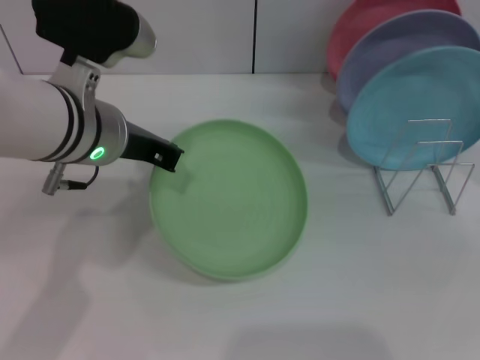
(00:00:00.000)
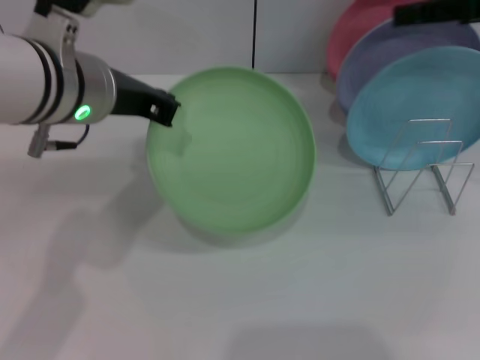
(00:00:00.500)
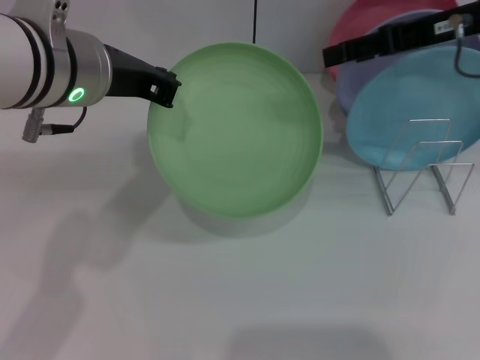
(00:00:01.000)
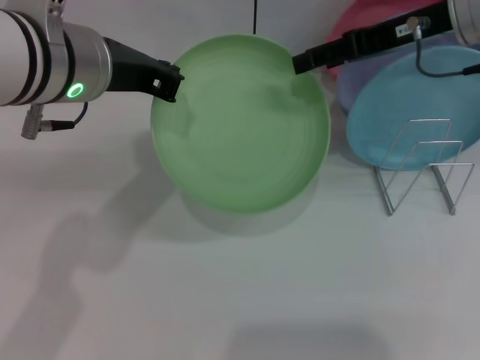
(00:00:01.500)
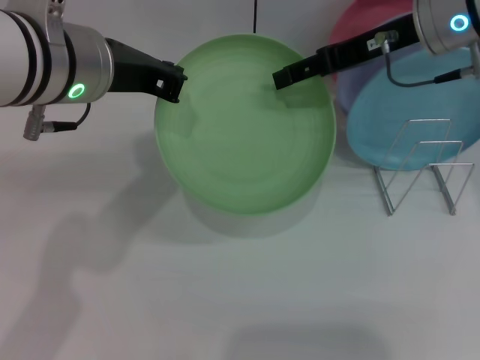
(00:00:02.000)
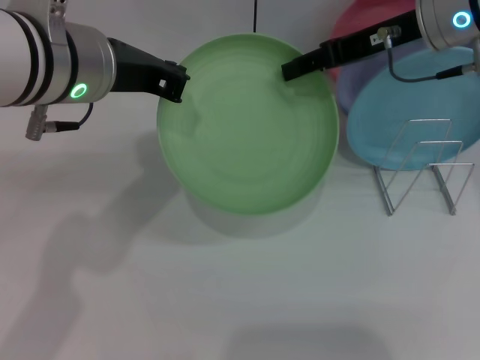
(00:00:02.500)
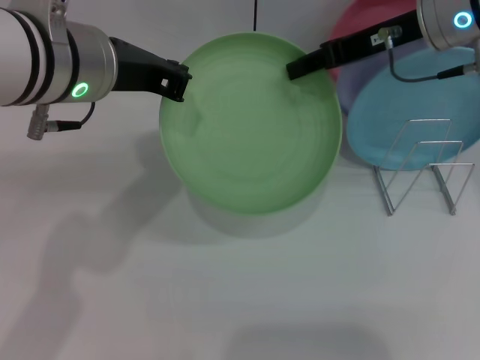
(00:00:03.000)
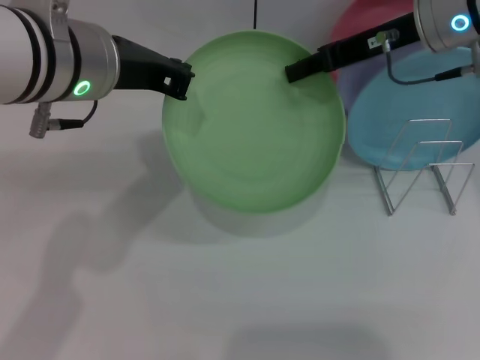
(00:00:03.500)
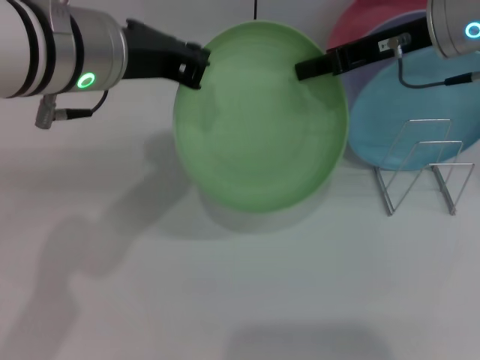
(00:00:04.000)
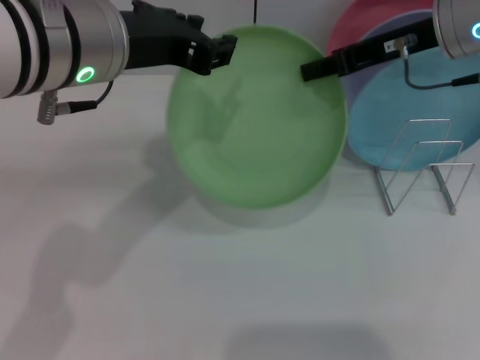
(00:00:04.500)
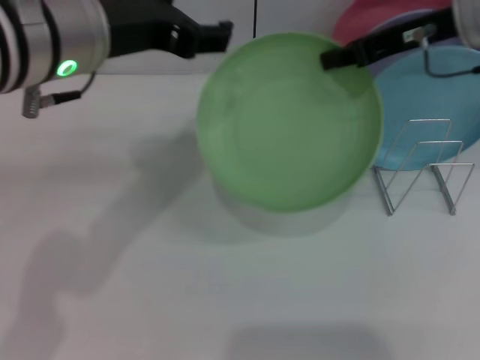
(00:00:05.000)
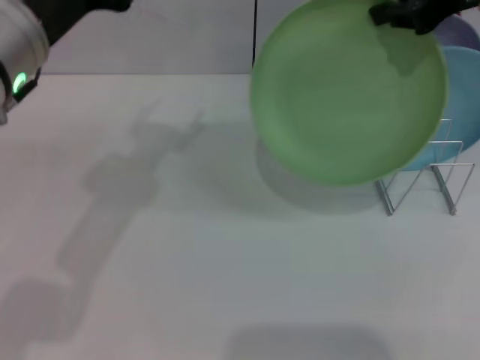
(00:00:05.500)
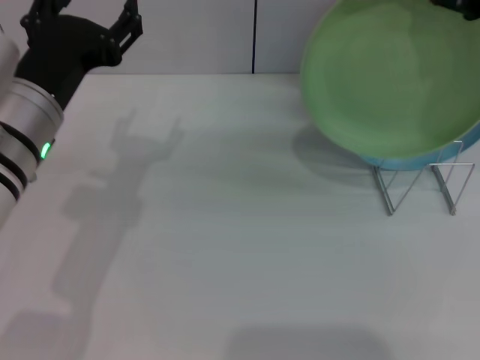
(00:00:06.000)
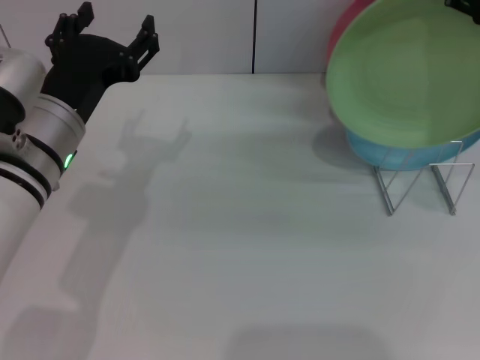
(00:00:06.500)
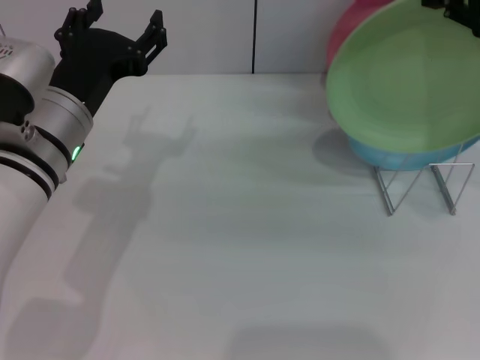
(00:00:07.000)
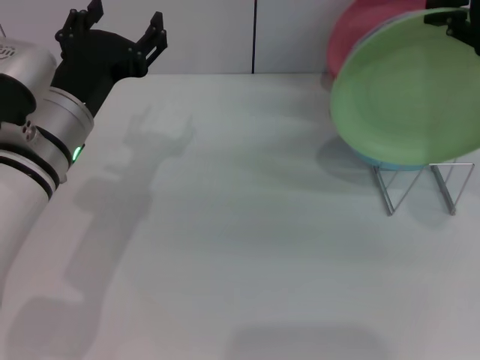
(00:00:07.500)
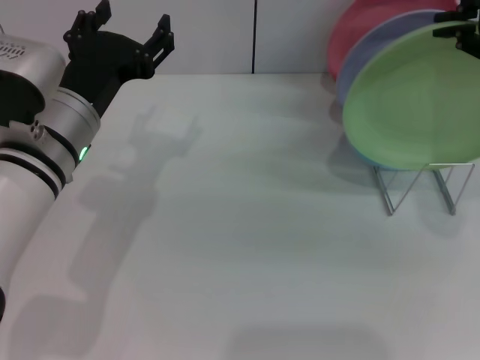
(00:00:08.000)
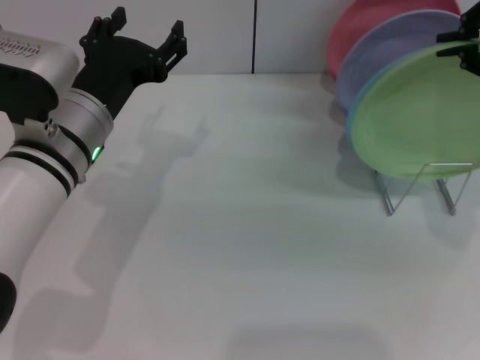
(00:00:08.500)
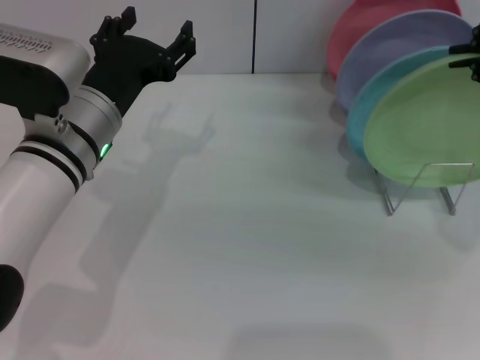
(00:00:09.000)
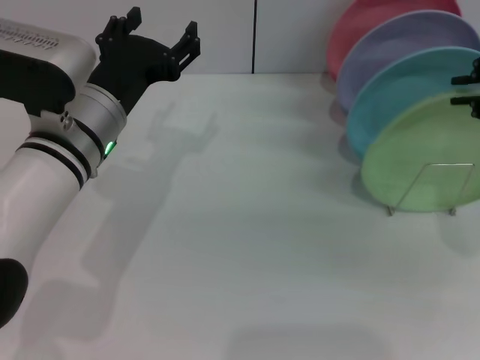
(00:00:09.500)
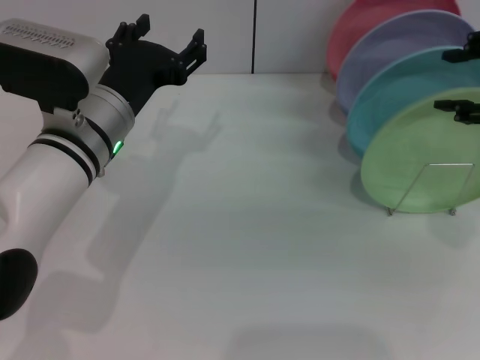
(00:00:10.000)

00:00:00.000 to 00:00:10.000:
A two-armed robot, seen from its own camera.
Task of the whole recording: Grip the plate with one hand, pass it to the other, then set it on the shelf.
Step, 00:00:00.500 to 00:00:05.000: Pass the plate from the left gripper to the right gripper.
Step, 00:00:06.000 to 00:00:10.000: Place the plate on the shelf with the right gripper.
00:00:00.000 to 00:00:02.000: The left gripper goes some 5 cm upward. Meanwhile the right gripper heads to the left and forward, covering approximately 15 cm.
00:00:02.000 to 00:00:04.000: The right gripper closes up.
00:00:04.000 to 00:00:06.000: The right gripper moves upward, some 10 cm; the left gripper moves downward and to the left, roughly 10 cm, and opens.
00:00:06.000 to 00:00:08.000: The right gripper changes place by roughly 5 cm.
00:00:08.000 to 00:00:10.000: The right gripper opens up.

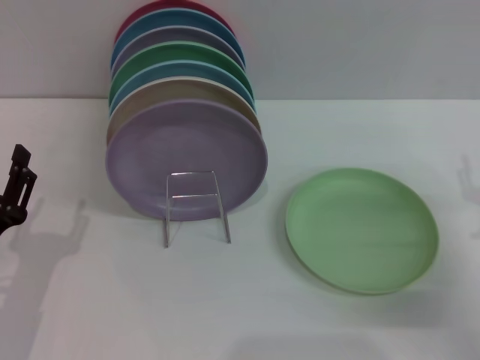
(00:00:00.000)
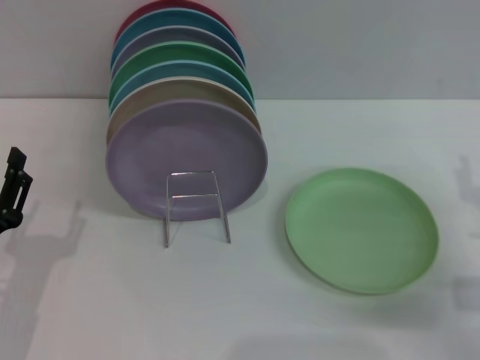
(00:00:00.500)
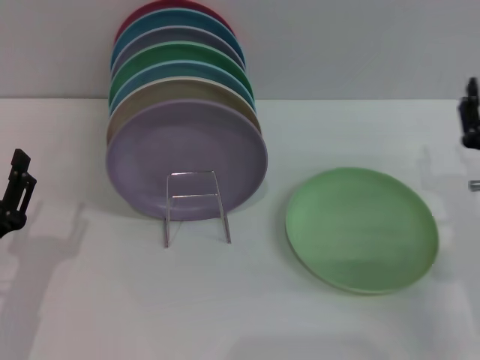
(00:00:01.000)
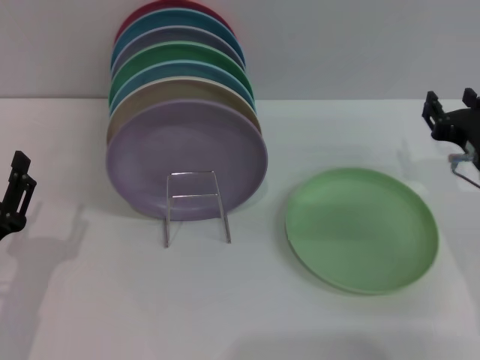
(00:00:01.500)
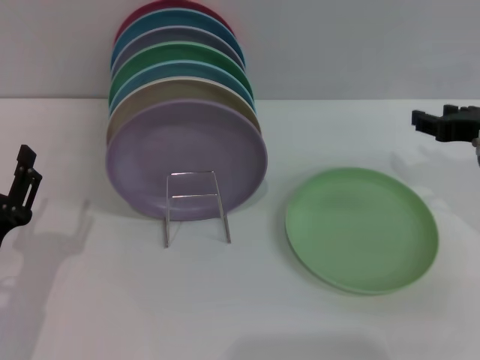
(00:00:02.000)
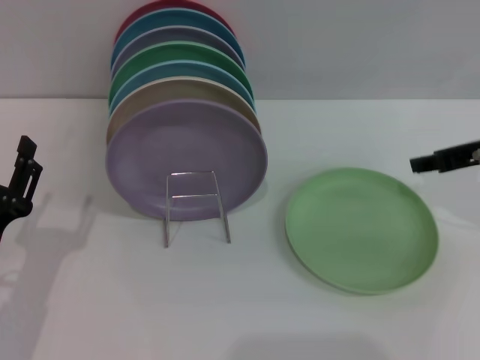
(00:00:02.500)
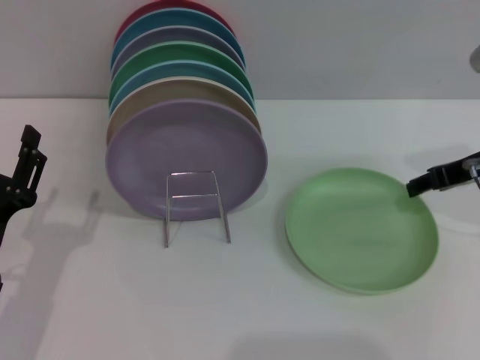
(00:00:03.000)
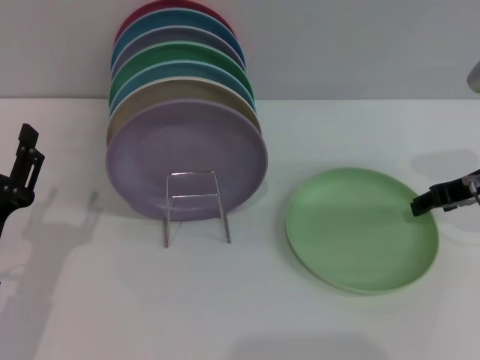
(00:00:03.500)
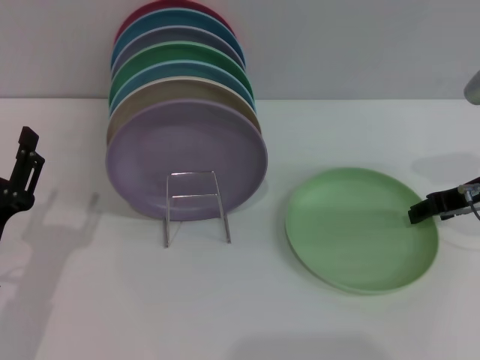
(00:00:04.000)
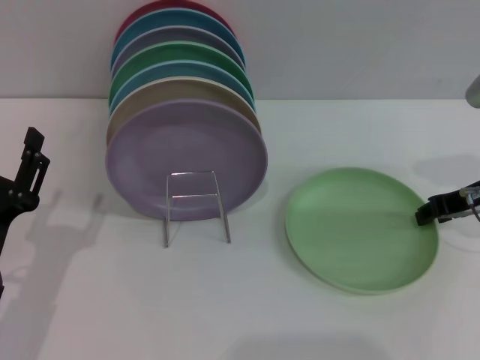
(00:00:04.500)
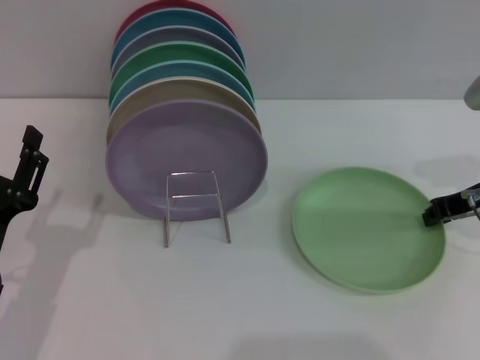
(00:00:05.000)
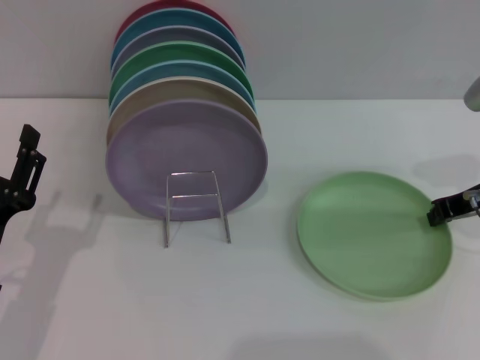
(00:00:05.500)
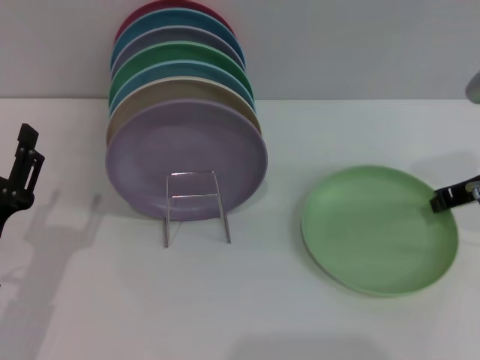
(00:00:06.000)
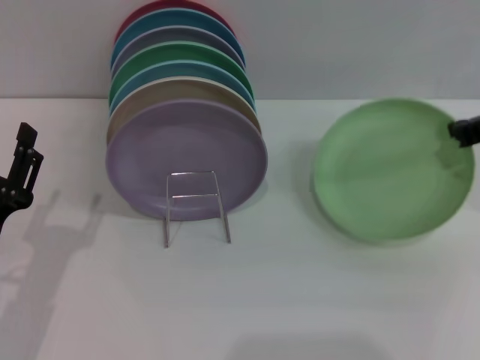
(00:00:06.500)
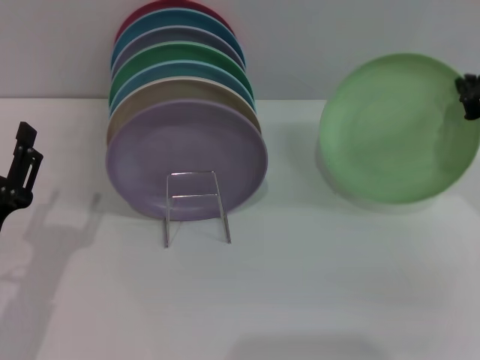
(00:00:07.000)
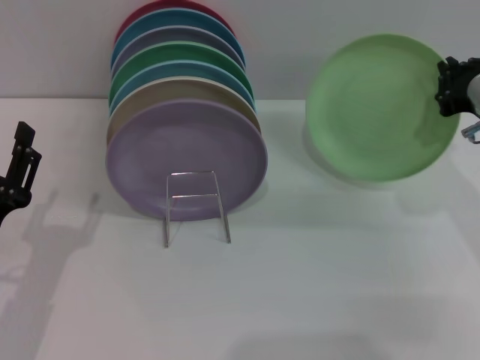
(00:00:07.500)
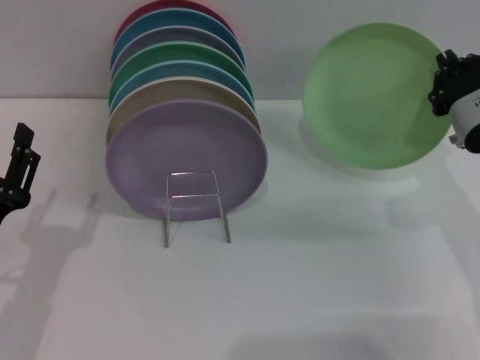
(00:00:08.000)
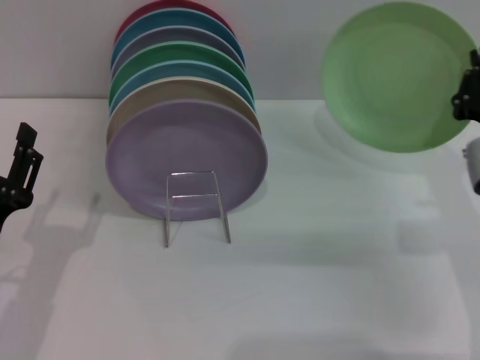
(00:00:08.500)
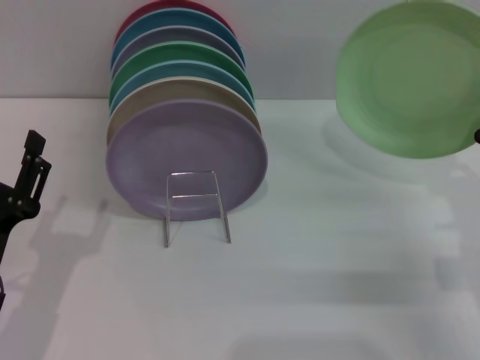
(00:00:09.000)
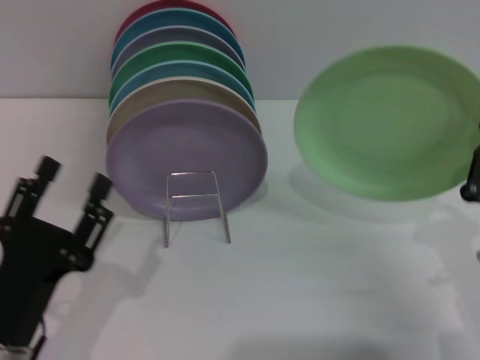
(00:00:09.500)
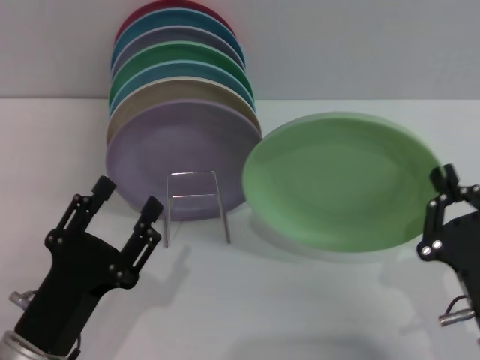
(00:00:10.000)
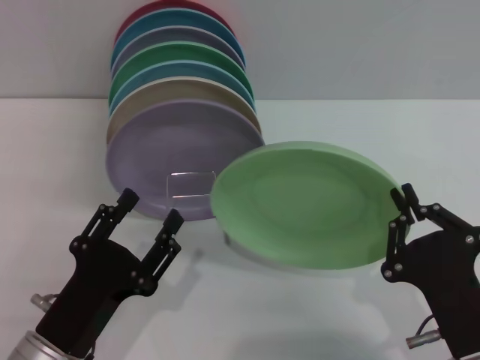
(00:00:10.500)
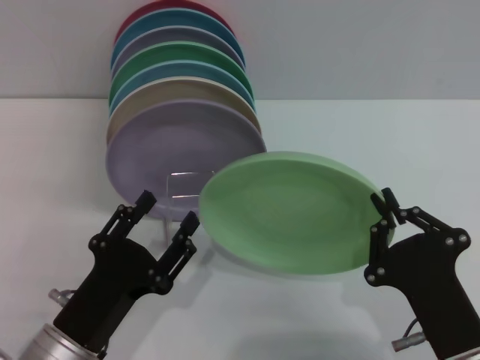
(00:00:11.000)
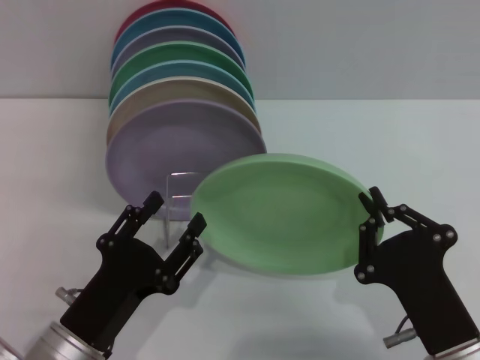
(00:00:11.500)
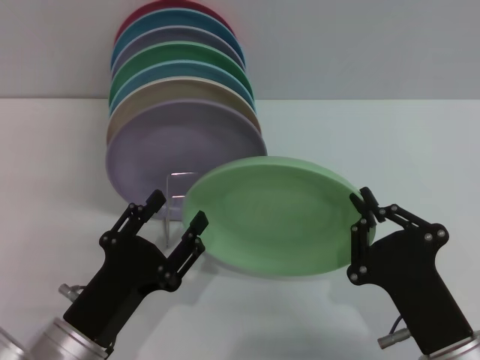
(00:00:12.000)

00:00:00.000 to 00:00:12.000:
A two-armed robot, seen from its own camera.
Task of the whole recording: Grip the plate with one hand, pass it to the other, then set it on the shelf.
Step, 00:00:00.000 to 00:00:06.500: Pick up the plate with the right gripper.
00:00:00.000 to 00:00:02.000: The right gripper shifts some 10 cm upward and forward.
00:00:04.000 to 00:00:06.000: The right gripper closes up.
00:00:06.000 to 00:00:08.000: The right gripper changes place by approximately 5 cm.
00:00:08.000 to 00:00:10.000: The left gripper heads to the right, covering approximately 5 cm; the right gripper shifts some 20 cm backward and downward.

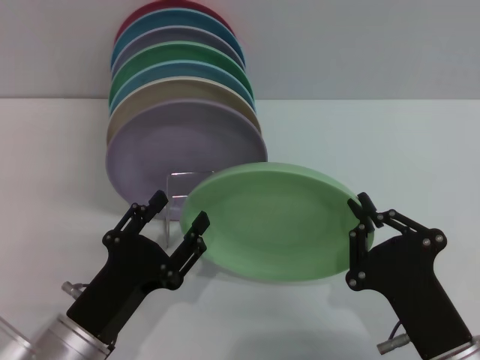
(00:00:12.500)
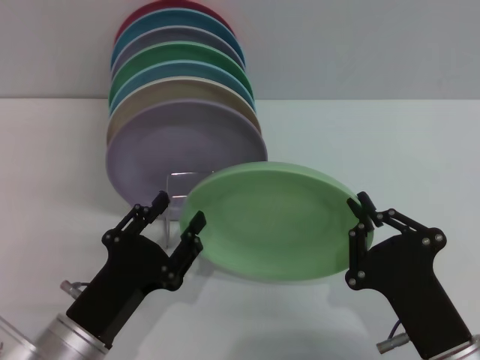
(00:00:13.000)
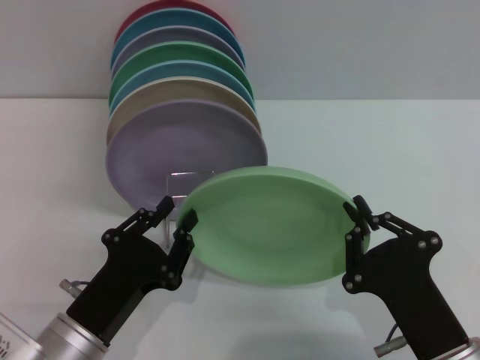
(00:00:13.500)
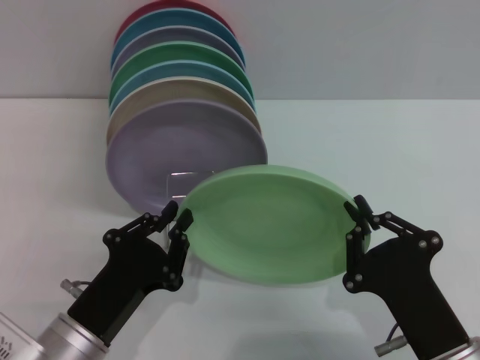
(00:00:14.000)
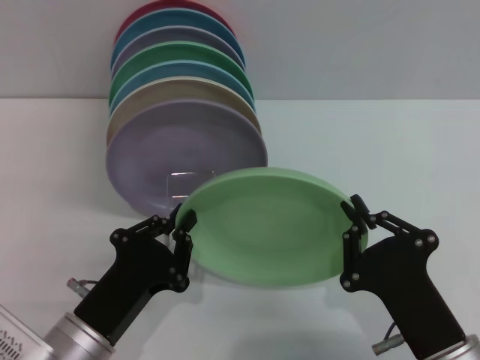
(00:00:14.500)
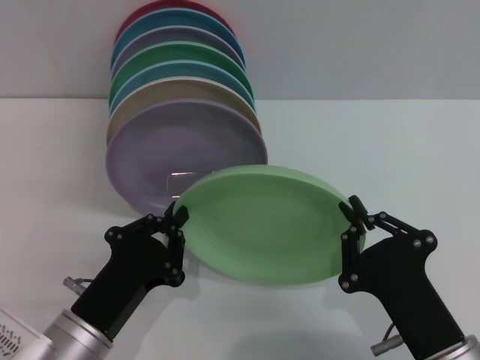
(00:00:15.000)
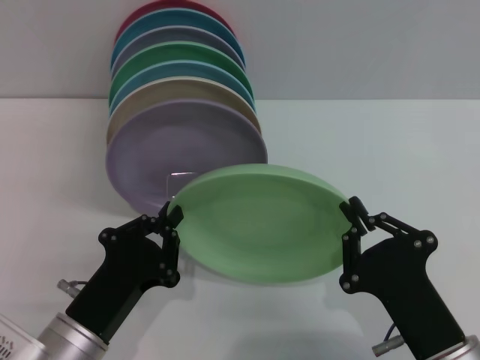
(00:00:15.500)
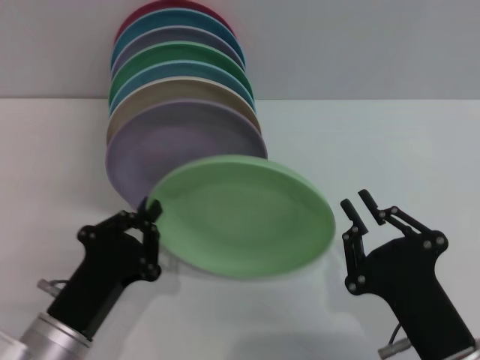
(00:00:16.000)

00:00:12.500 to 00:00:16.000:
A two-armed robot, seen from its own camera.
Task of the whole recording: Grip the plate with one hand, pass it to the other, then set it on the shelf.
Step, 00:00:12.500 to 00:00:15.500: Pass the plate from the right gripper to the left gripper.
00:00:12.500 to 00:00:14.500: The left gripper closes.
00:00:14.500 to 00:00:16.000: The grippers move only a little.
